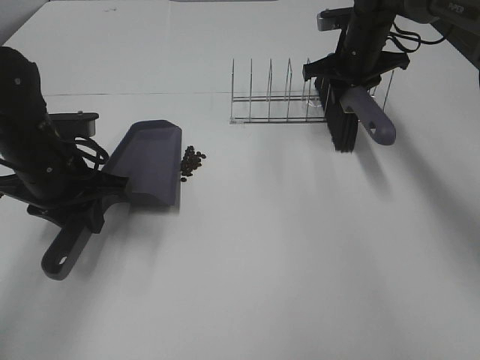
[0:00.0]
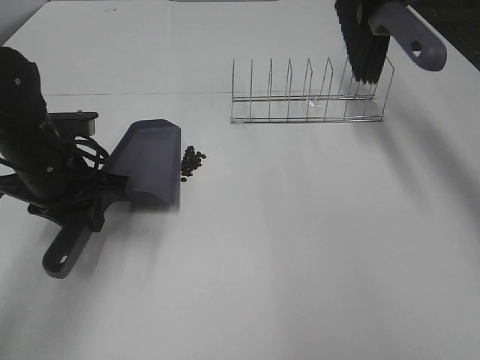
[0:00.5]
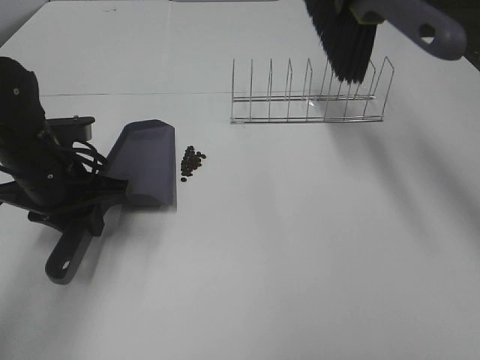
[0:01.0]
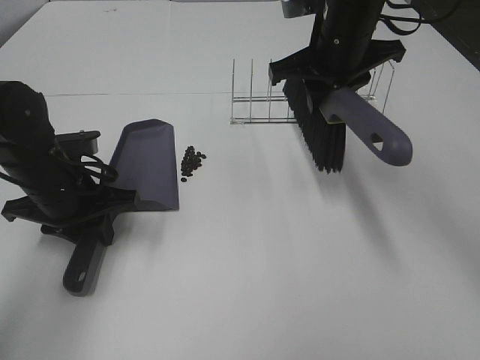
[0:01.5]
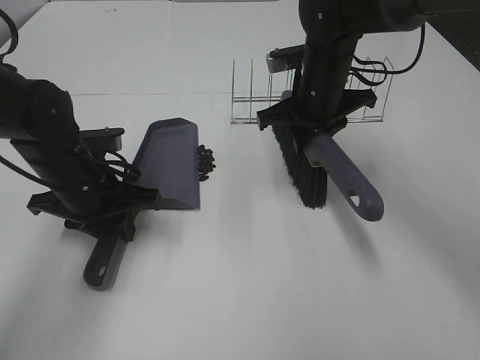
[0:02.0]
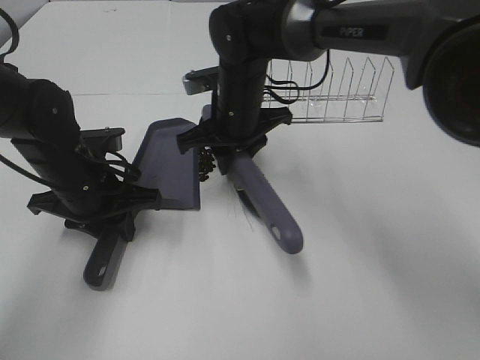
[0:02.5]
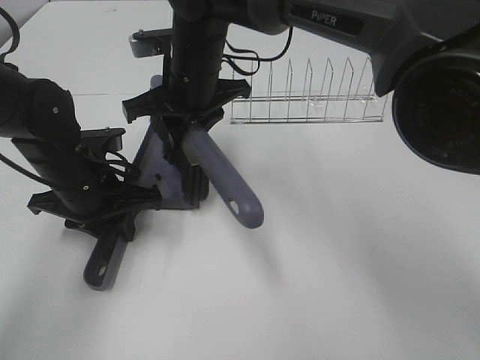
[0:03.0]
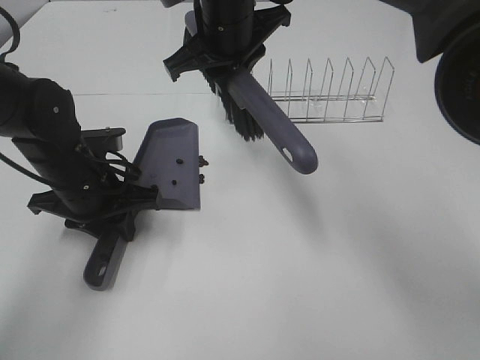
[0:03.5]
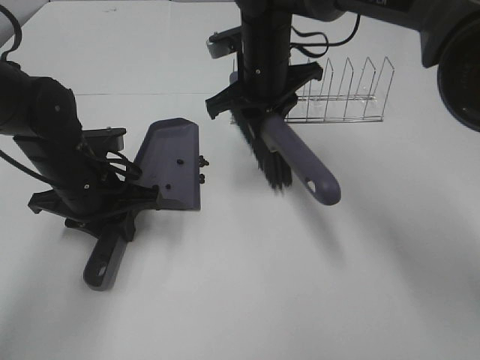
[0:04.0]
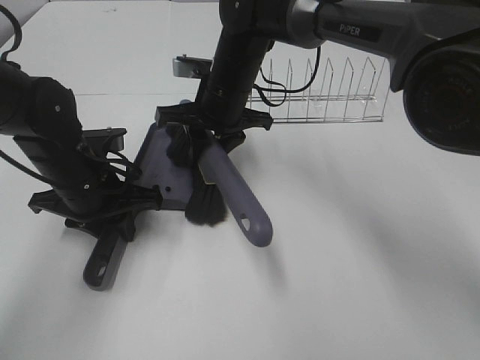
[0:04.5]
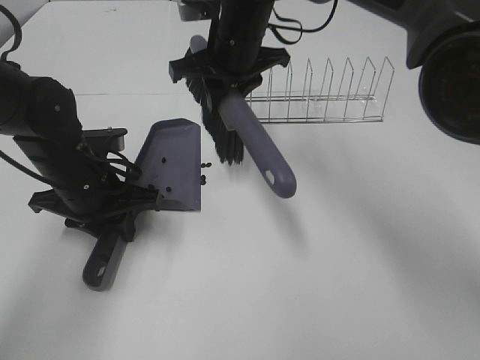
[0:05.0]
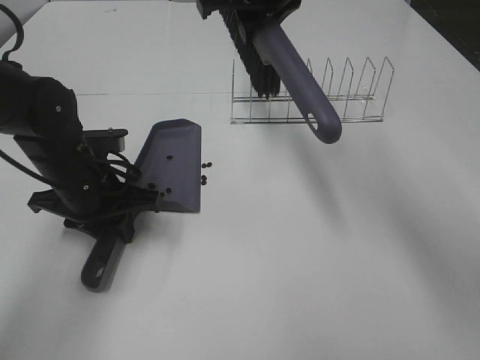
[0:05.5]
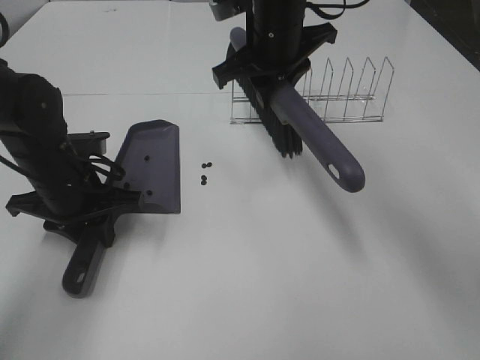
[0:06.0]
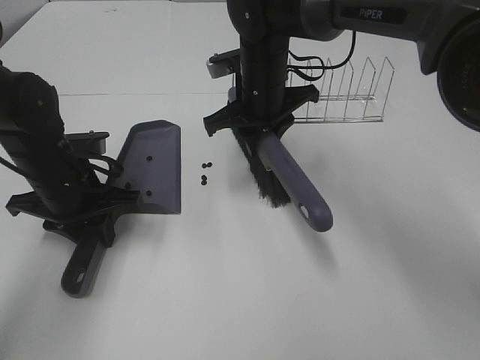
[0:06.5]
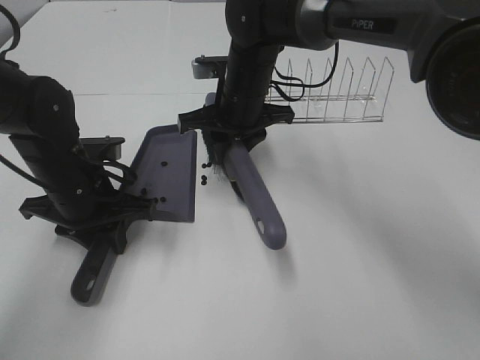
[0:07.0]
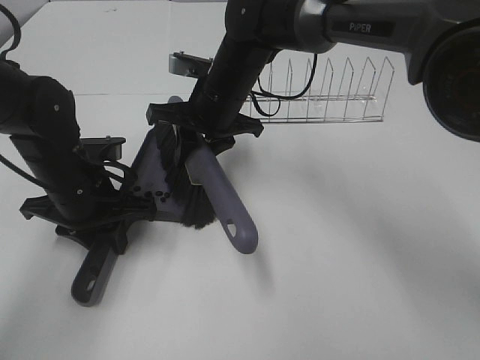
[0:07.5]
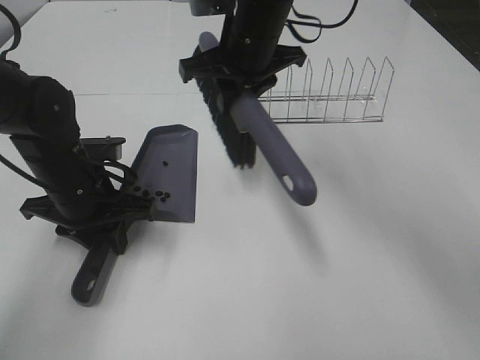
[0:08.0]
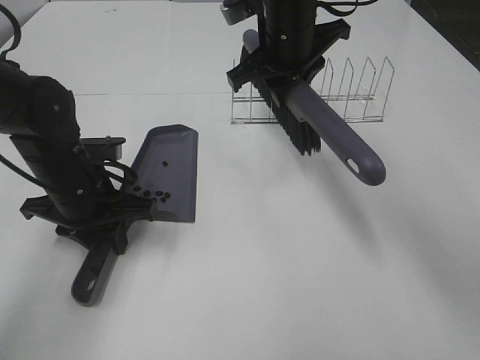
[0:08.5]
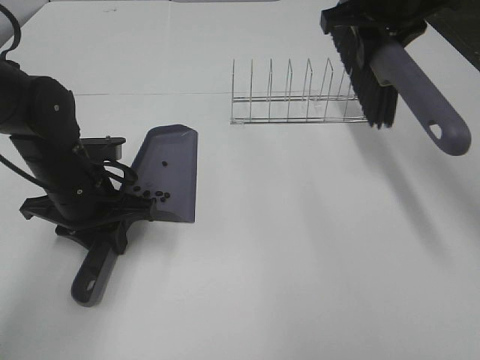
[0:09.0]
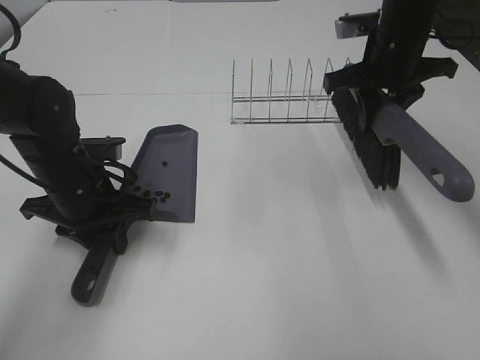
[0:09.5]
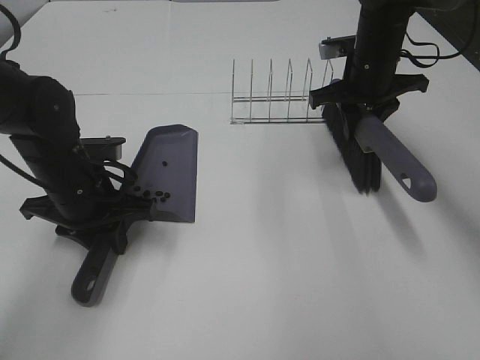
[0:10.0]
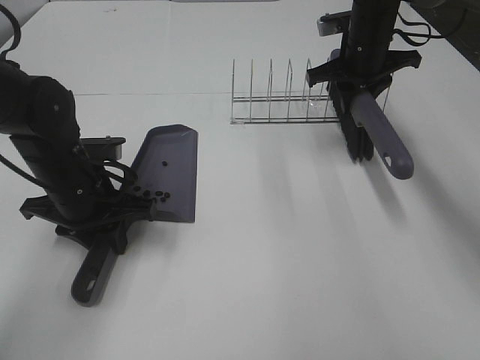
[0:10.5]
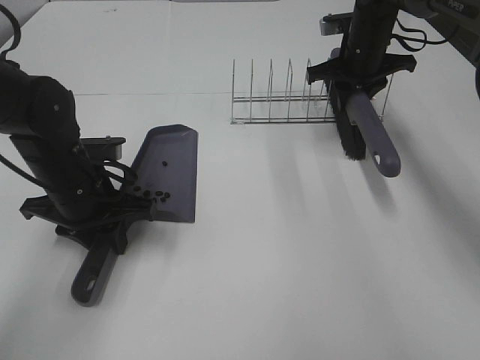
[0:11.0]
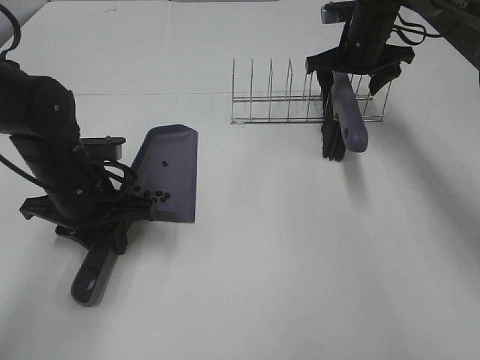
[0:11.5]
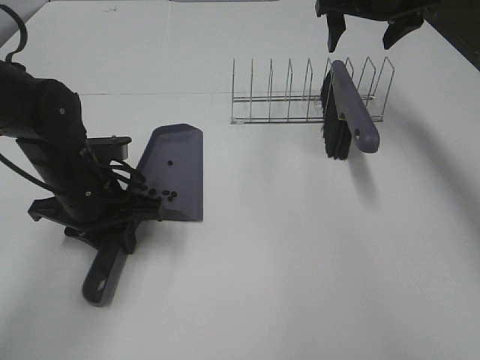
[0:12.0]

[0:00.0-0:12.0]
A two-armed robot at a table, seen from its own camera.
Task of the whole recording: Sweep Coffee Bean.
Step, 0:00.0 to 0:07.5: Right hand:sweep the coffee beans into the dustpan.
Step, 0:08.0 to 0:11.0: Right hand:place the broom on the rack.
0:00.0 to 0:02.0: The right gripper travels backward and to the left by about 15 cm, and travels upward and back again, roughly 15 cm each way.
0:02.0 to 0:04.0: The right gripper shifts about 10 cm to the left.
0:04.0 to 0:06.0: The right gripper is displaced upward by some 5 cm.
0:06.0 to 0:08.0: The right gripper moves about 10 cm downward and comes back.
0:08.0 to 0:10.0: The right gripper travels to the right by roughly 15 cm.
0:10.0 to 0:12.0: The right gripper heads upward, covering some 10 cm, and opens.

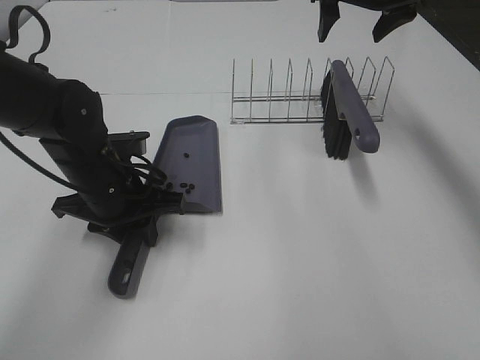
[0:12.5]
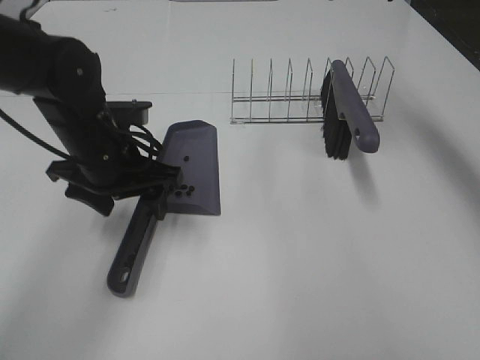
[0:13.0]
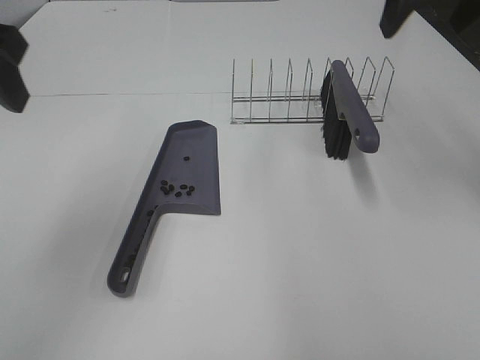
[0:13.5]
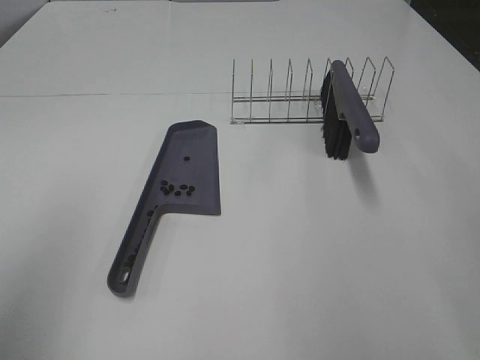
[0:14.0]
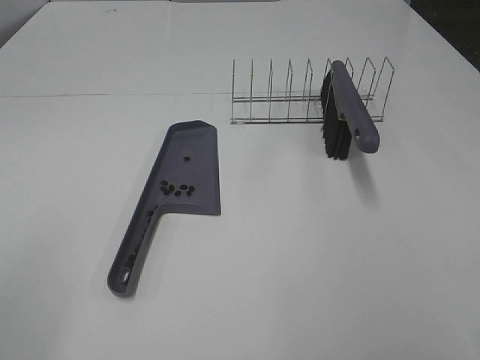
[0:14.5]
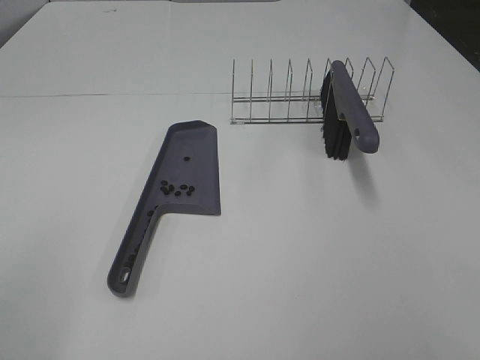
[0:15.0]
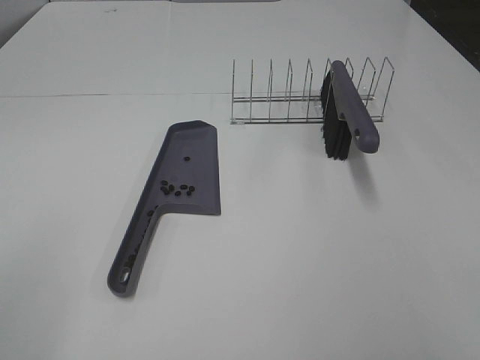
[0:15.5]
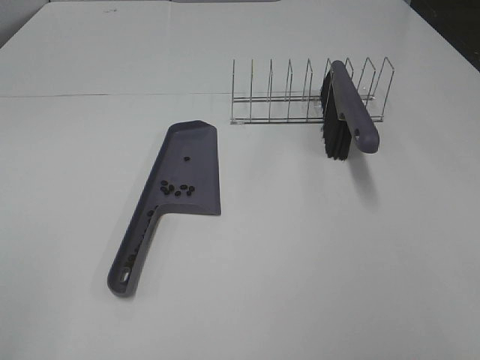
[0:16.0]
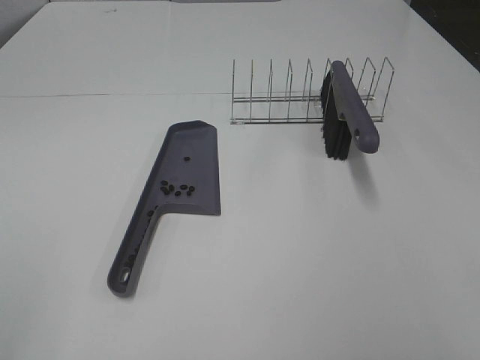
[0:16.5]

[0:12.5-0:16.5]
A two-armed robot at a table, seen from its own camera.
Task of the whole recording: Sweep Coffee Bean.
0:12.5 to 0:14.5: The right gripper is displaced backward by approximately 40 cm, while the left gripper moves backward, upward and to the left, approximately 35 cm, and opens.

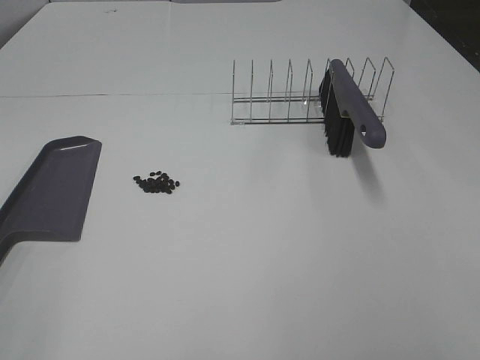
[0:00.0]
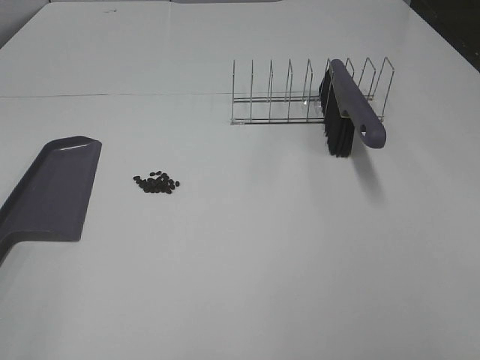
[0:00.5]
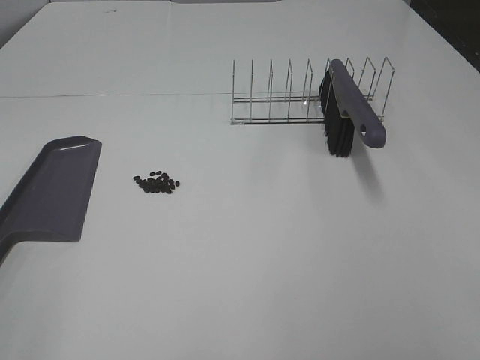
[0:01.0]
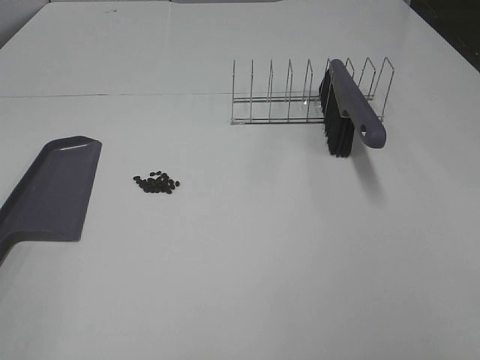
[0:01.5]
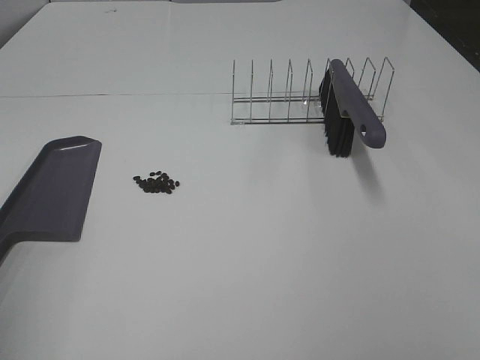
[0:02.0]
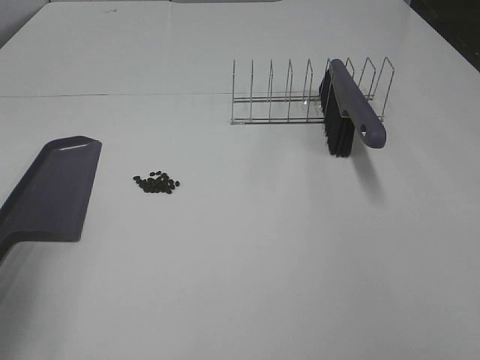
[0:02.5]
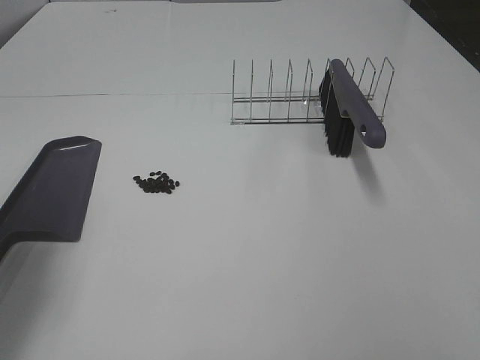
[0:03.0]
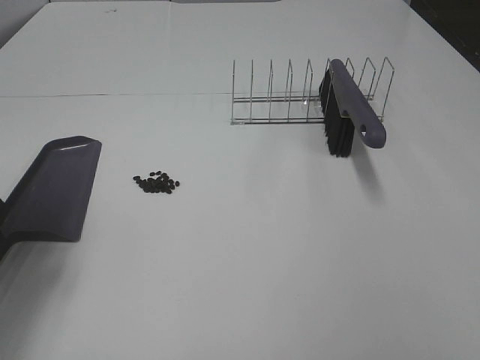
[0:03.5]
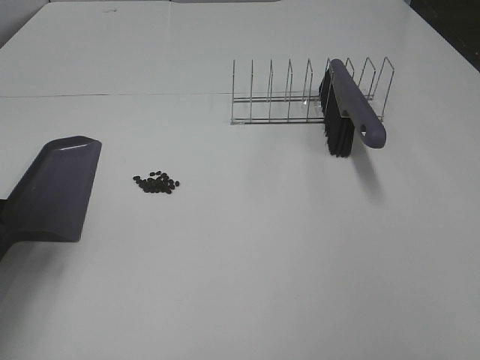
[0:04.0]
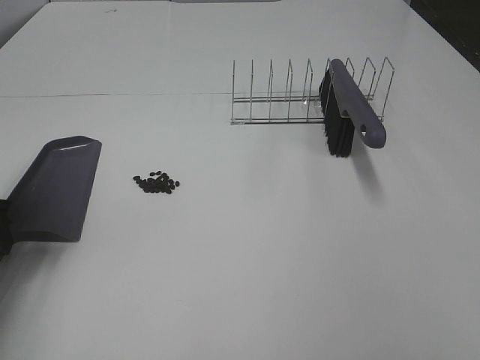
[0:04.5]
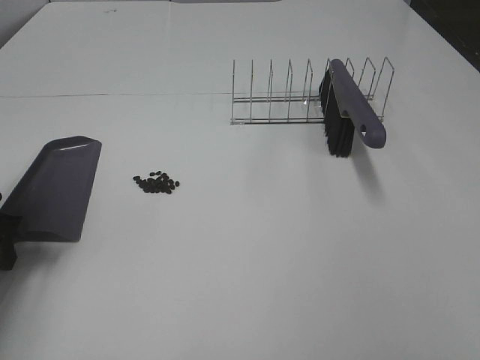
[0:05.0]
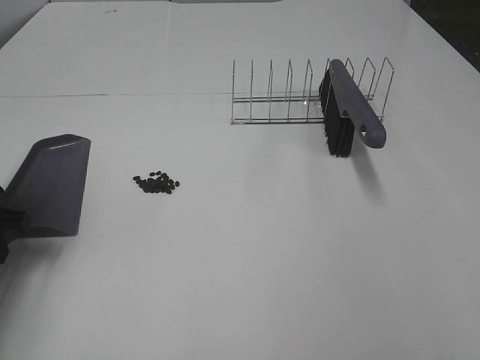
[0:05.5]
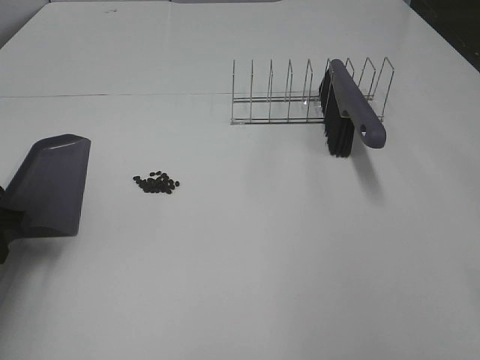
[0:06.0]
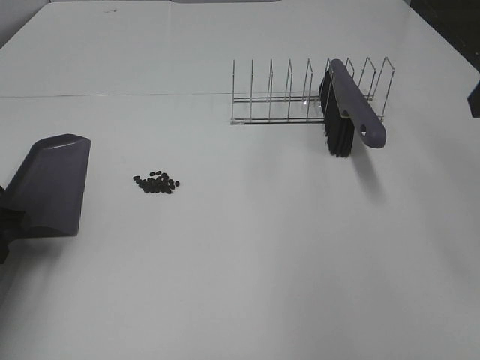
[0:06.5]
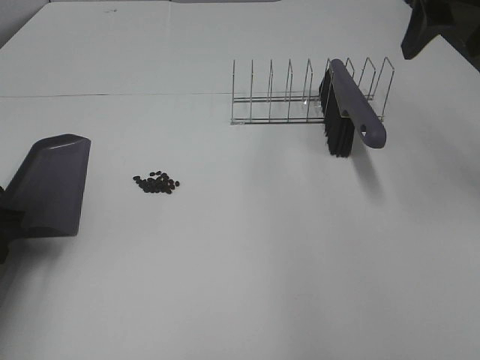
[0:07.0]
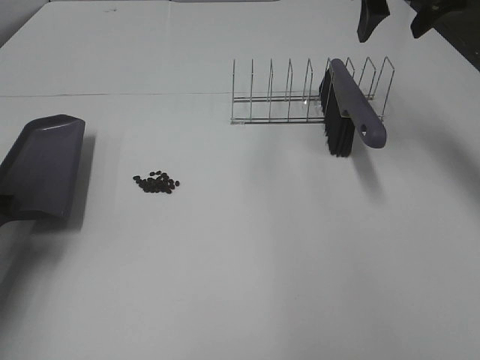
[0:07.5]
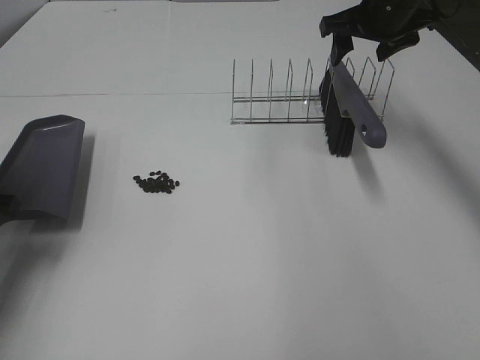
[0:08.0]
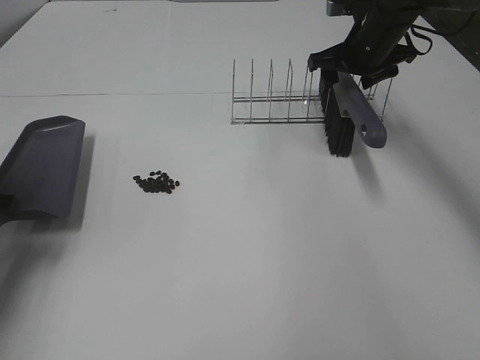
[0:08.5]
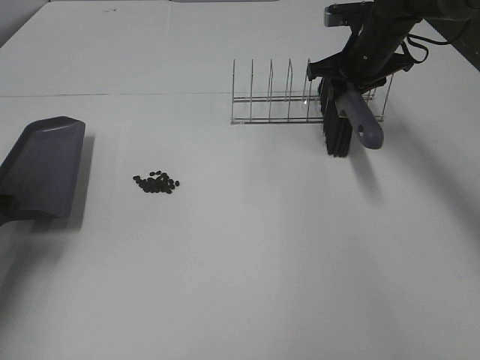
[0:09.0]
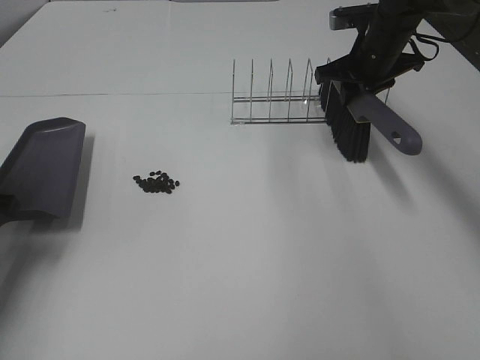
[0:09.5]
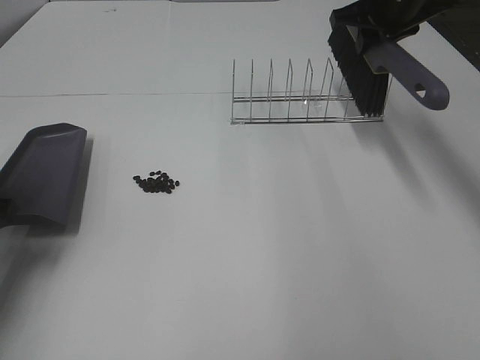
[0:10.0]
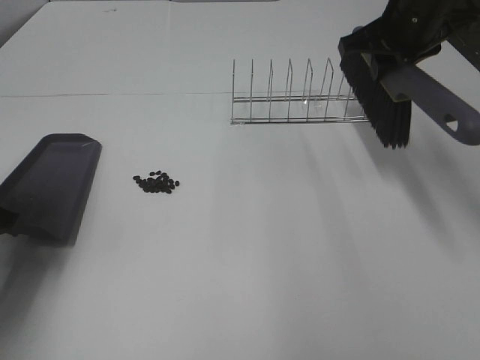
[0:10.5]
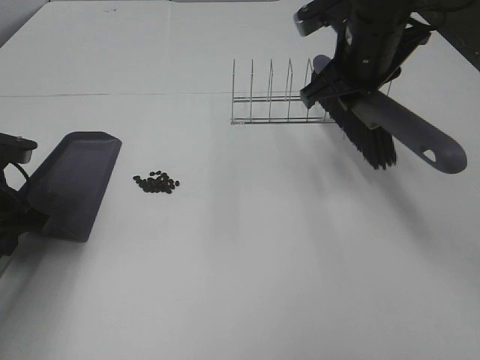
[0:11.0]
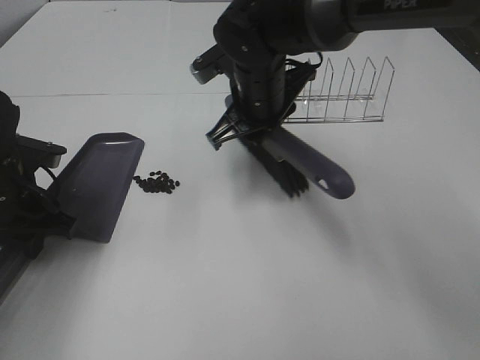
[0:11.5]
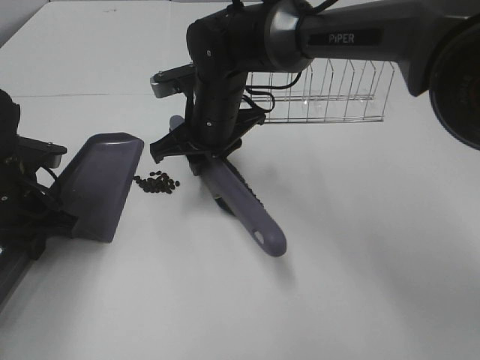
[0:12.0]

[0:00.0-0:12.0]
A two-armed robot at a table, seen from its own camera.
Task of the whole recording: Sweep Coffee Bean.
Step, 0:00.0 to 0:05.0: Left hand: grab the dustpan.
Step, 0:05.5 to 0:09.0: Right hand:grab the broom.
0:02.0 to 0:04.0: The left gripper is displaced forward and downward by about 25 cm.
0:04.0 to 0:06.0: The left gripper moves downward, approximately 5 cm, and closes up.
0:06.0 to 0:08.0: The right gripper is displaced forward by about 40 cm.
0:08.0 to 0:10.0: The right gripper moves roughly 5 cm downward and comes back, and closes up.
0:10.0 to 0:12.0: The right gripper moves to the left and downward, approximately 25 cm. Meanwhile the left gripper shifts roughly 5 cm to the right.
